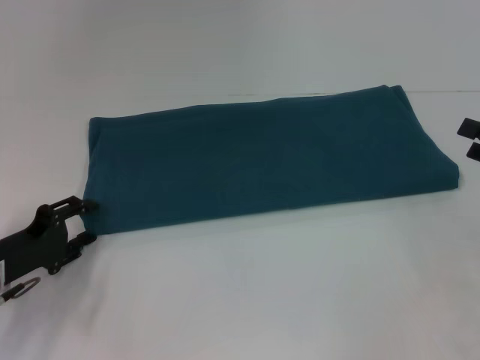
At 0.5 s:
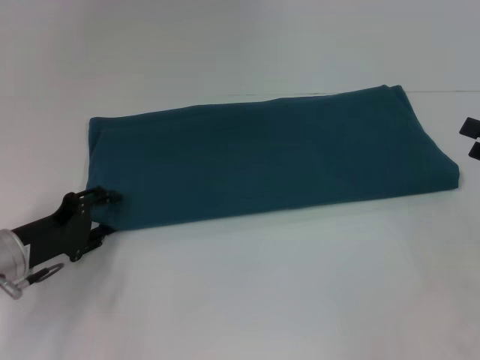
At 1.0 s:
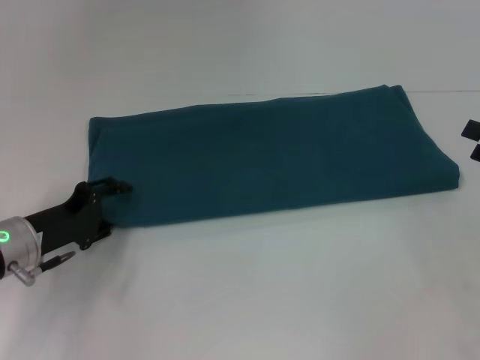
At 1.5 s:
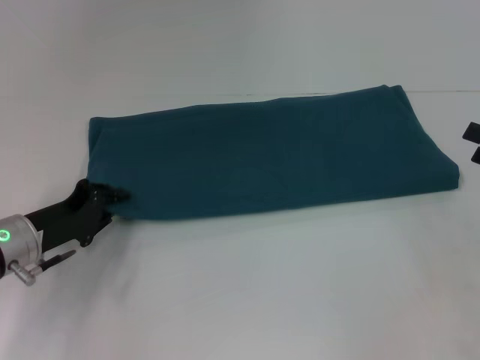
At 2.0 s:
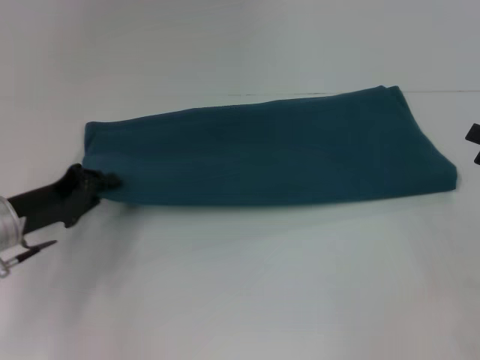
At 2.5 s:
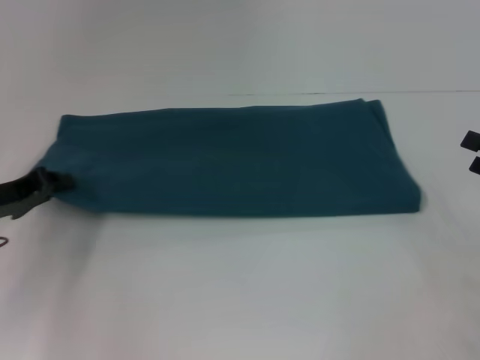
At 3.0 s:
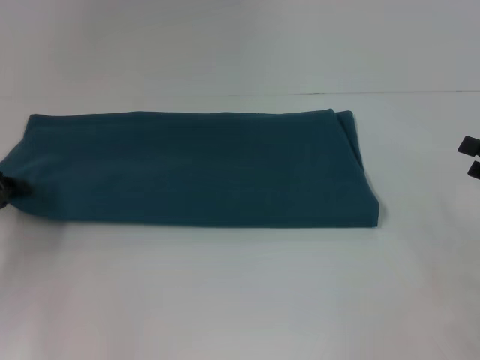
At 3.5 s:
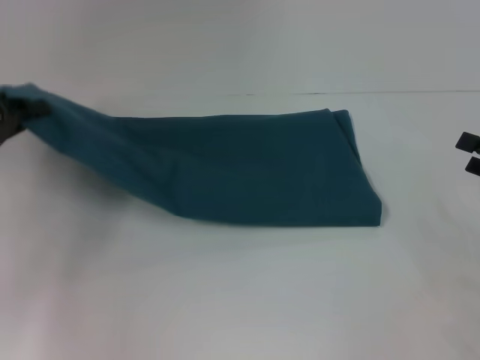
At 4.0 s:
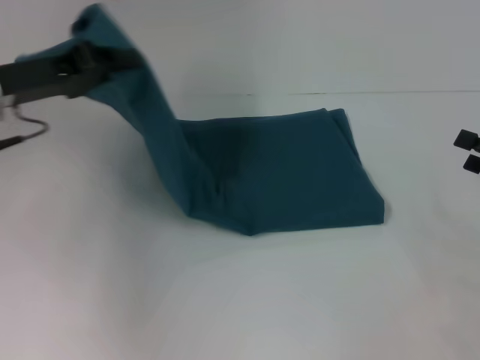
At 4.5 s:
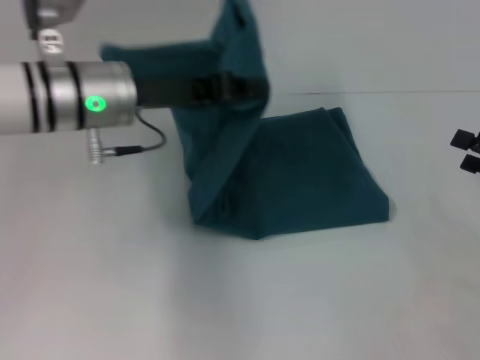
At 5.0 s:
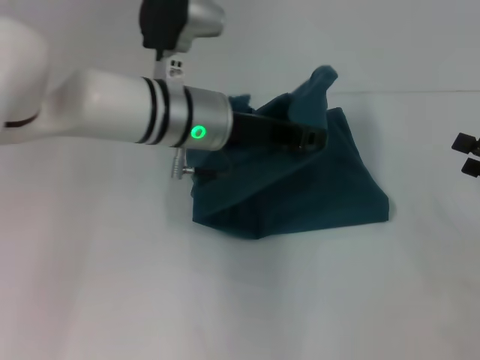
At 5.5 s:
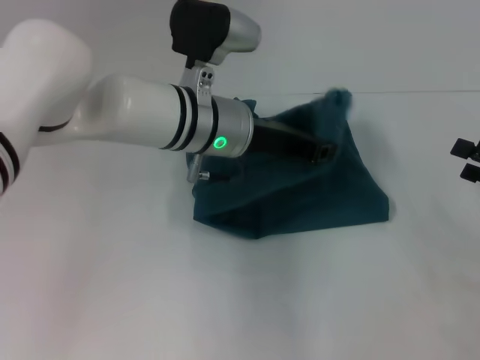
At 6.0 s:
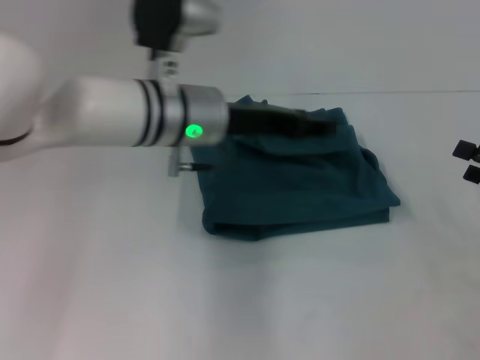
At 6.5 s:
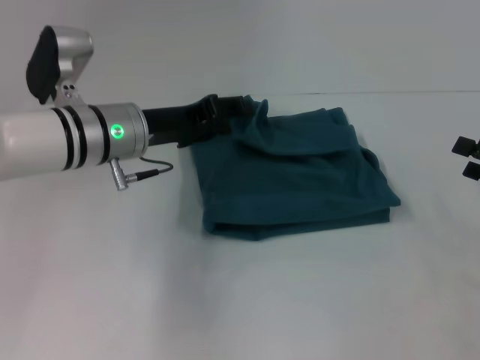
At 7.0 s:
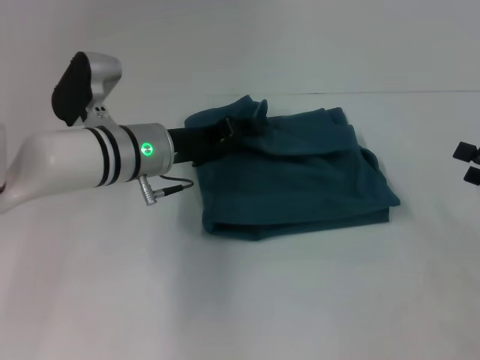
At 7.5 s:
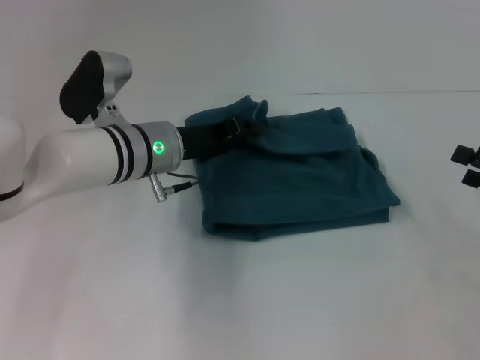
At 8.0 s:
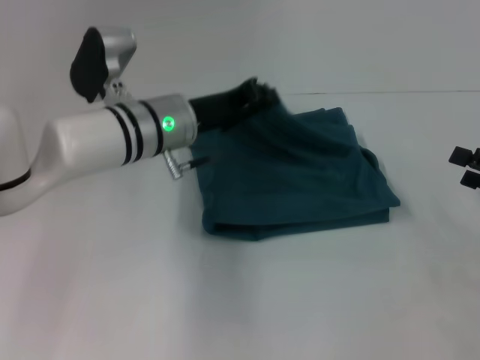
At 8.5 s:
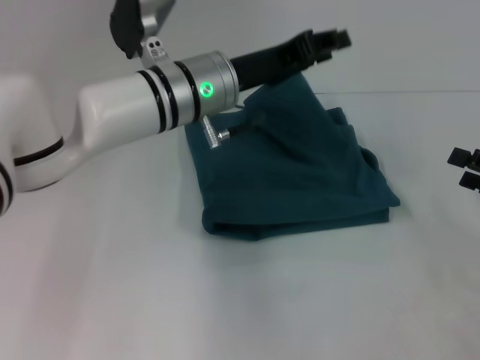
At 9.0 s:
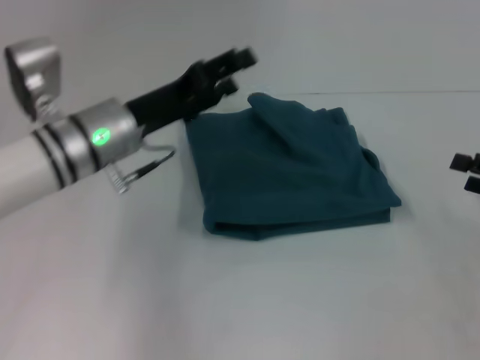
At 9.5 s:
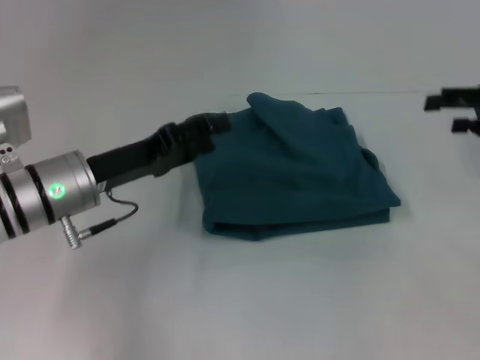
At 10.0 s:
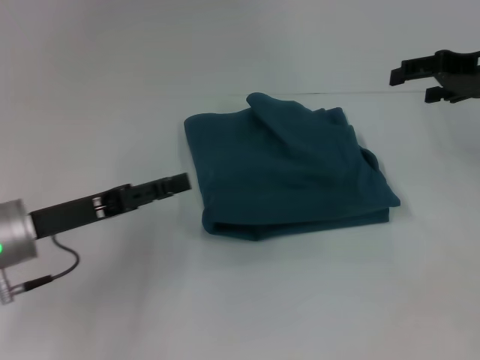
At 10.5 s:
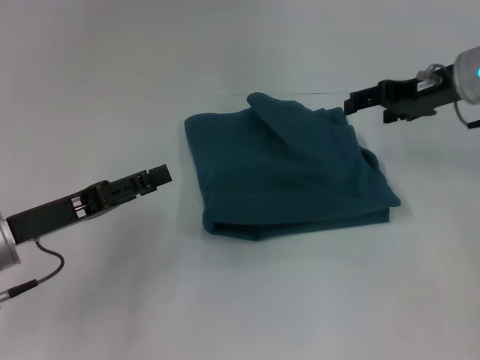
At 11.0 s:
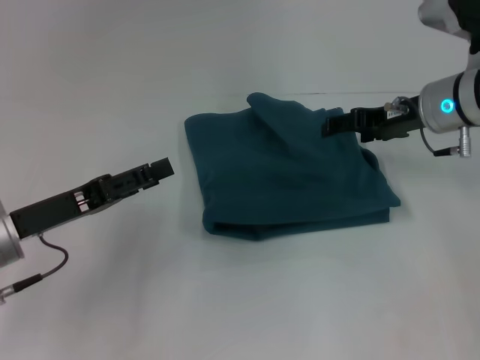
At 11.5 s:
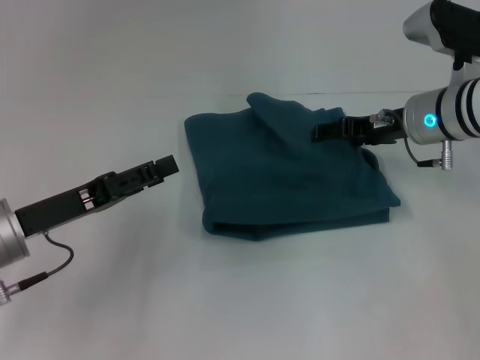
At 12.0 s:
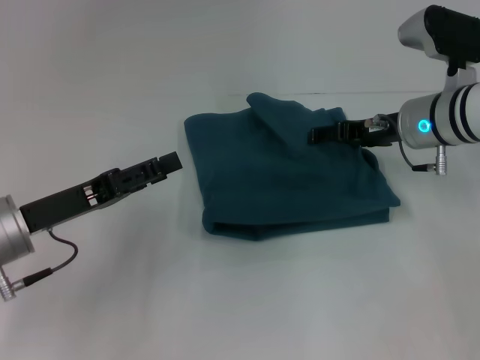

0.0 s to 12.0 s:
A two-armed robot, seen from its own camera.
Step, 0.0 to 6.0 s: Fold the clothes to the left.
0.0 to 2.0 s: The left gripper moves approximately 5 cm, and closes up.
2.0 to 4.0 s: The left gripper heads upward and forward, covering some 15 cm.
4.0 to 6.0 s: The left gripper is displaced to the right by approximately 20 cm.
8.0 to 10.0 s: The right gripper heads forward, upward and to the left, covering approximately 20 cm, while the left gripper travels to the left and backward by about 20 cm, and opens up.
10.0 to 12.0 s: The right gripper shifts roughly 15 cm to the left and downward.

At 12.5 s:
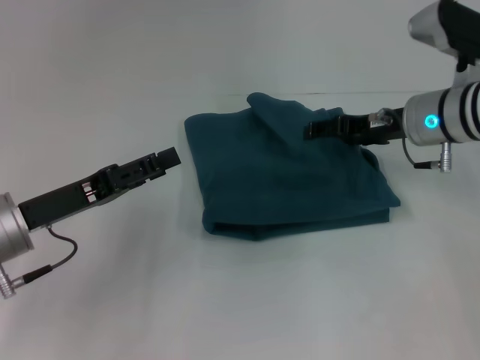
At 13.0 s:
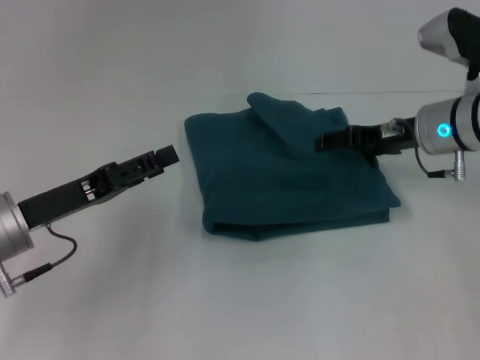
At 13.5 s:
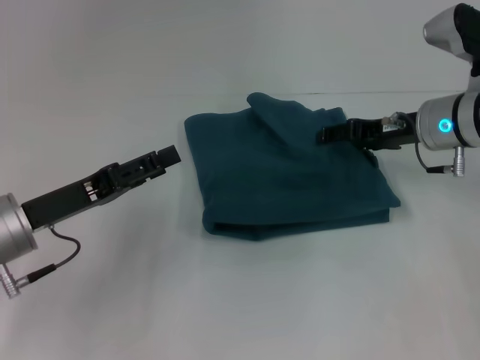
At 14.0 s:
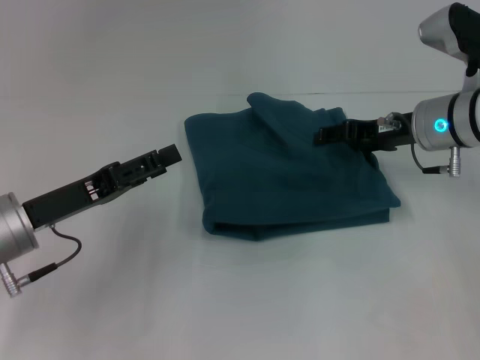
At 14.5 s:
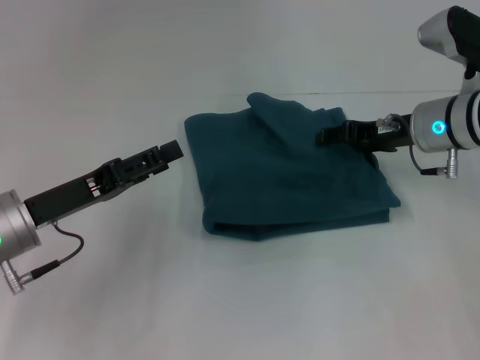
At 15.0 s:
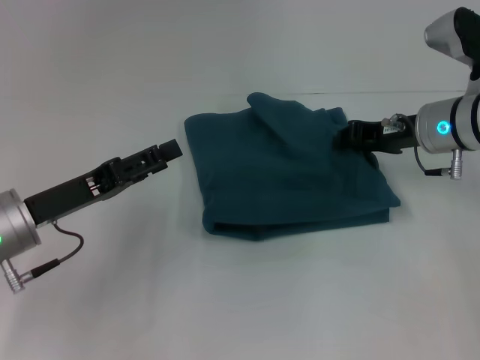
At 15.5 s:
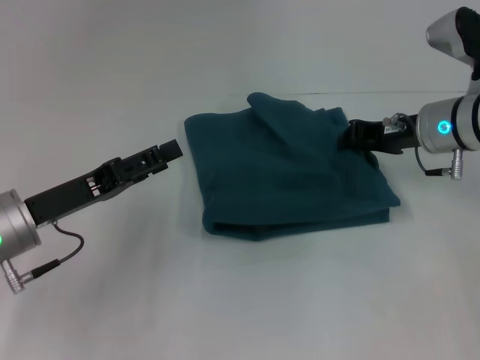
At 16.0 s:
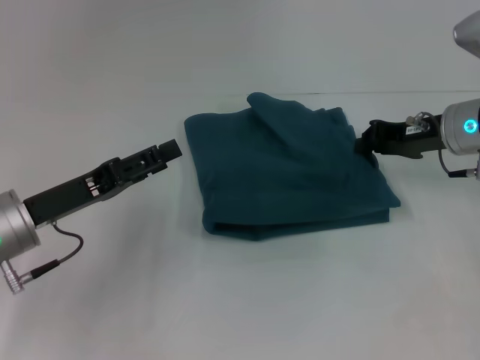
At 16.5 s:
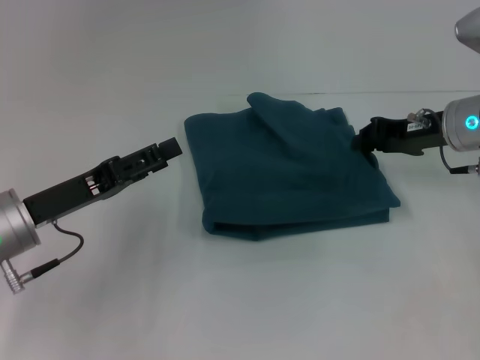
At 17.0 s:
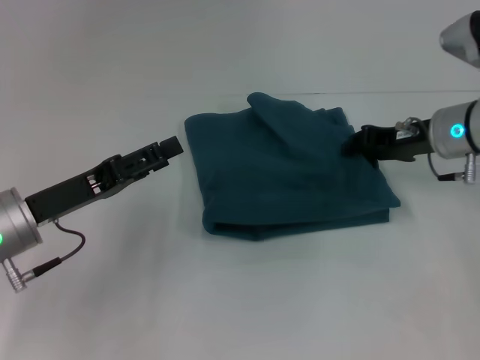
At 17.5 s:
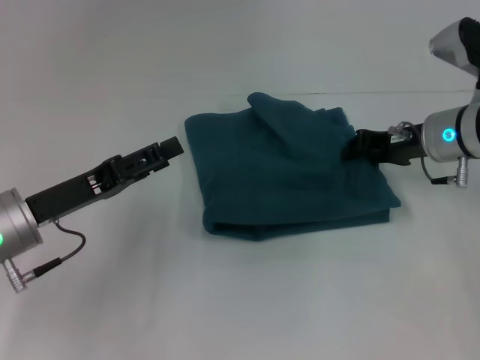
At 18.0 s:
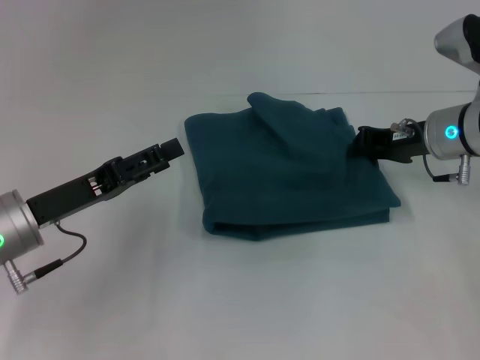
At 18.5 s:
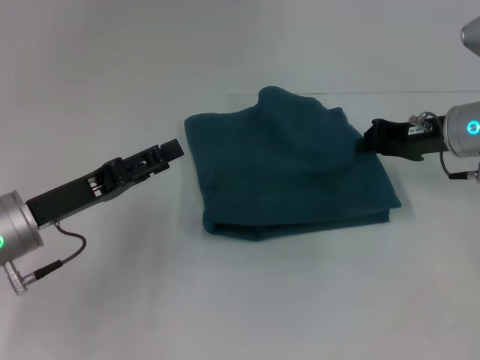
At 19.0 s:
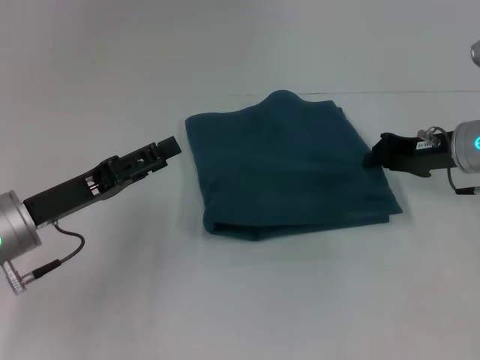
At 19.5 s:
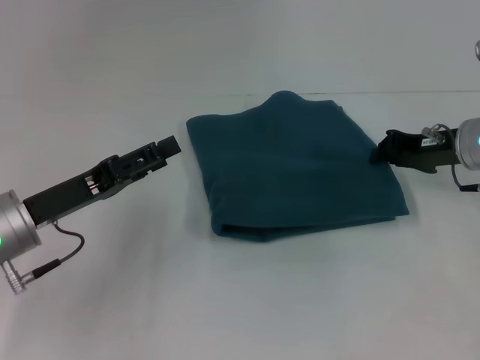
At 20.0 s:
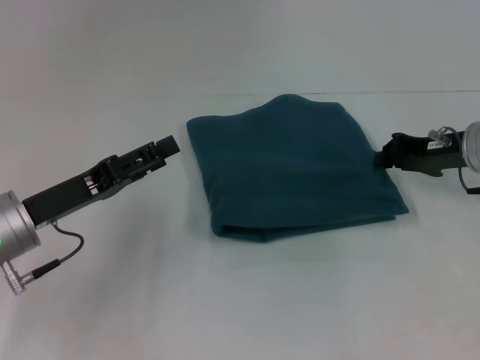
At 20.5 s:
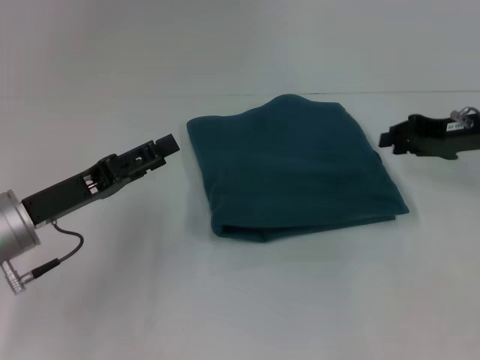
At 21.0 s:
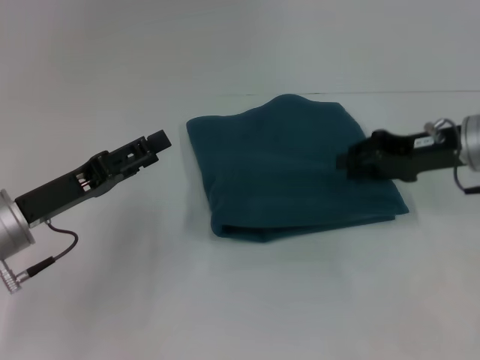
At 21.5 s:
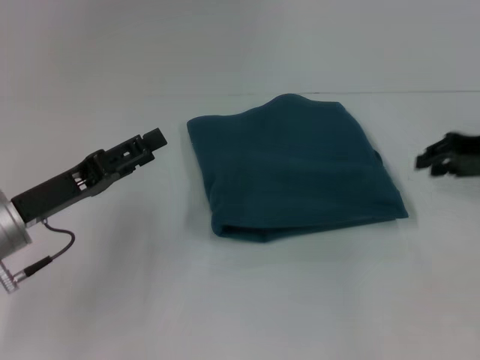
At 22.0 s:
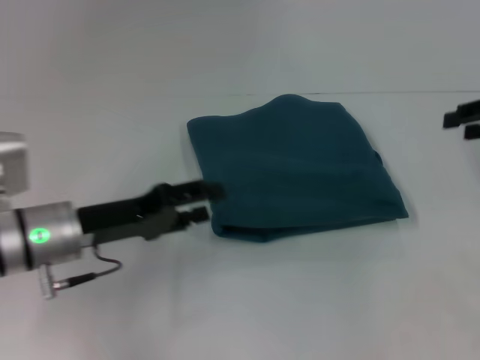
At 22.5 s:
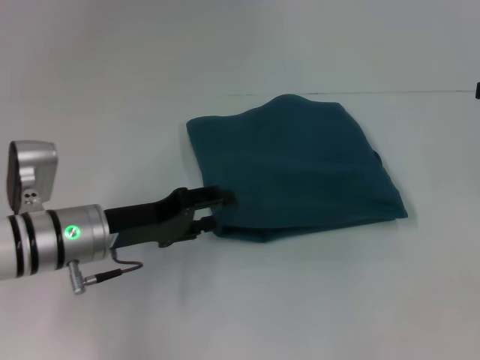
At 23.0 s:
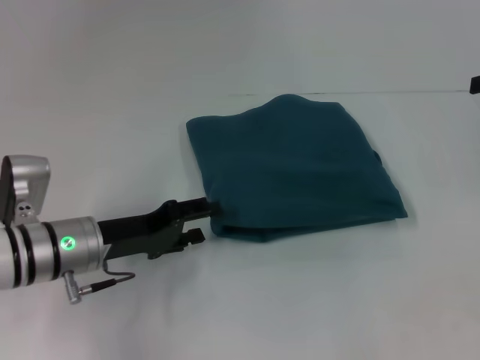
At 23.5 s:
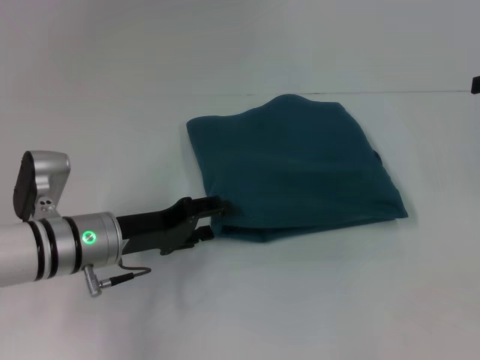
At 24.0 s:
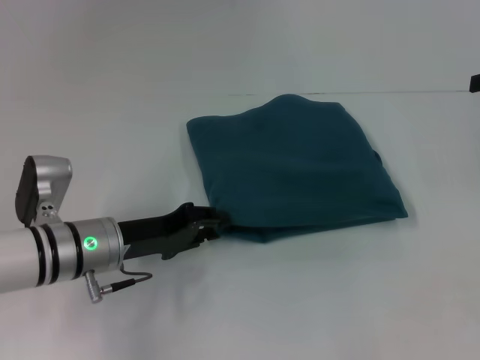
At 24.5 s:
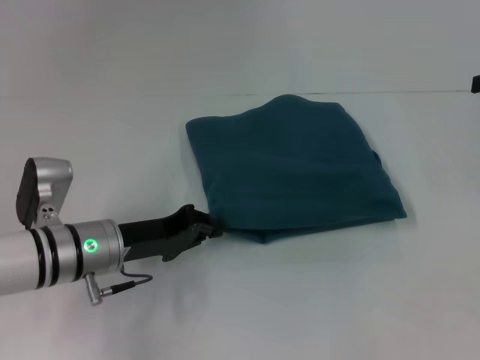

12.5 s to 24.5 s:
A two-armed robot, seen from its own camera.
12.5 to 14.5 s: The grippers move only a little.
14.5 to 16.5 s: The right gripper closes its fingers.
16.5 to 20.5 s: There are only small adjustments of the grippers.
20.5 to 22.5 s: The left gripper moves to the right, approximately 5 cm. The right gripper shifts roughly 10 cm upward and to the right, and opens its fingers.
22.5 to 24.5 s: The left gripper closes.

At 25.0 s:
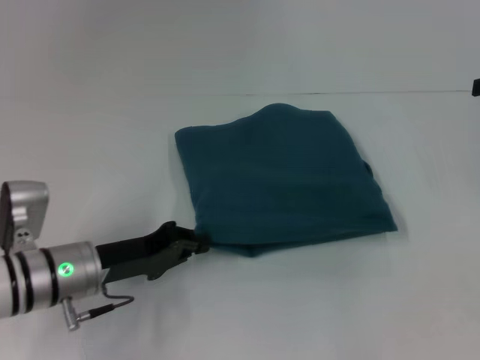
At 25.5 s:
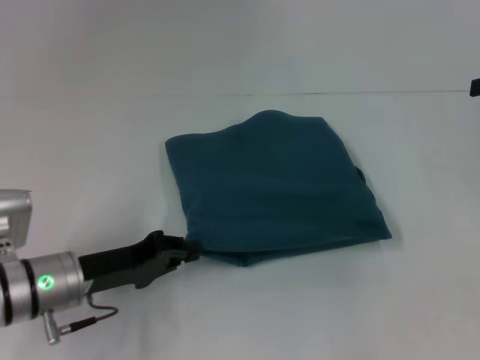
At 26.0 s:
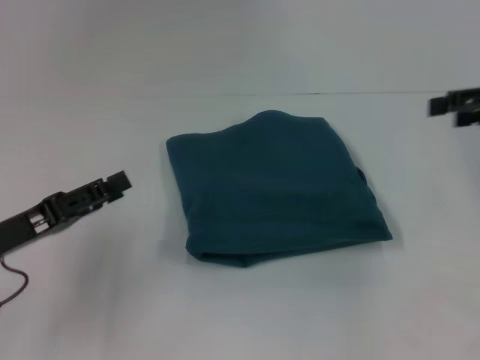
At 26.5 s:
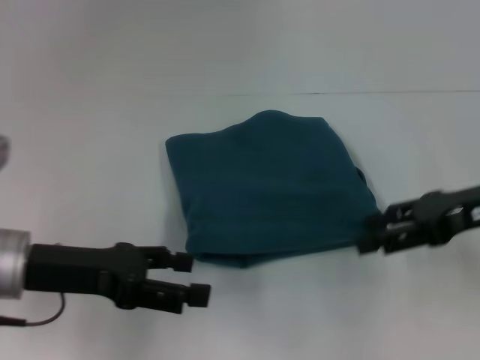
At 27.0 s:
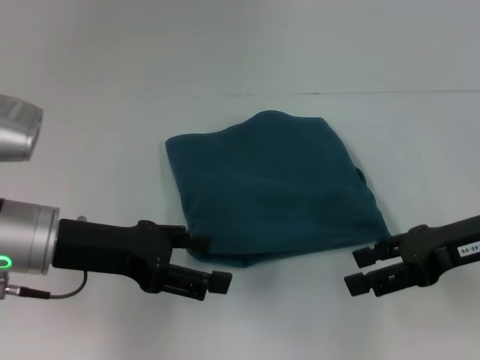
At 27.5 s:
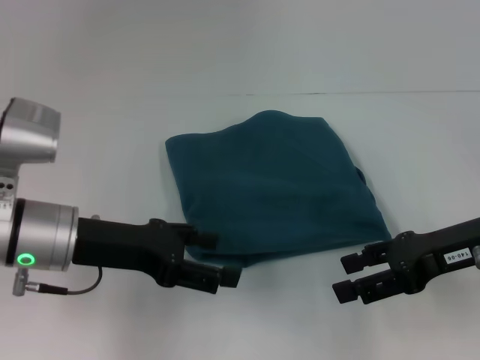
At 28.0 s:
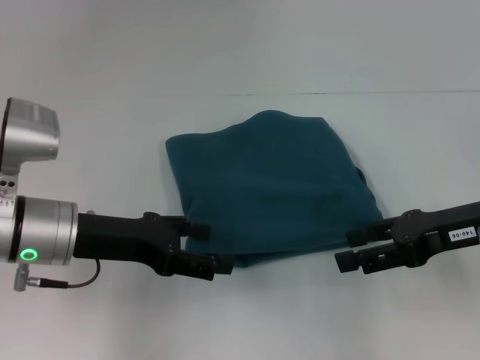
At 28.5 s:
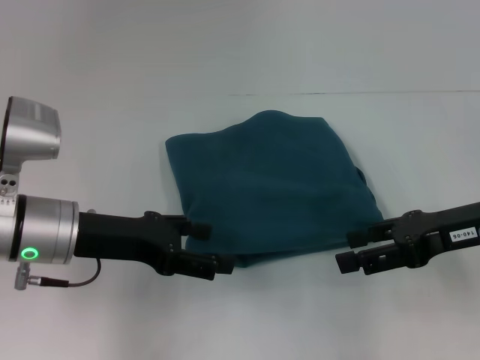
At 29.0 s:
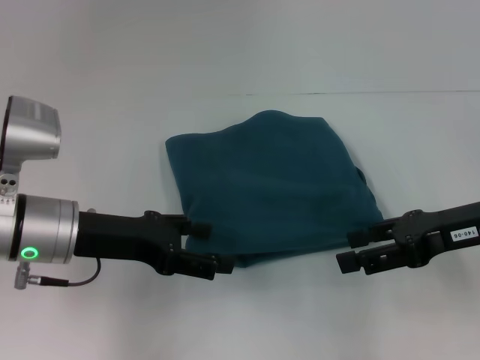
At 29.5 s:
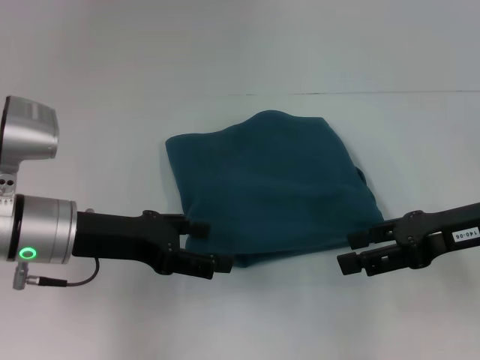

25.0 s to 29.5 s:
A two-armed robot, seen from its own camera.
25.0 to 27.0 s: The right gripper shifts approximately 15 cm to the left, downward and backward. The left gripper moves upward, approximately 10 cm, and opens its fingers.
27.0 to 29.5 s: The grippers make only small movements.
